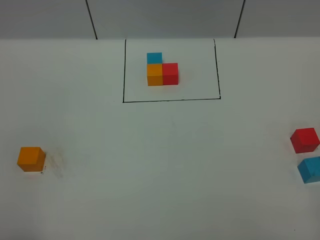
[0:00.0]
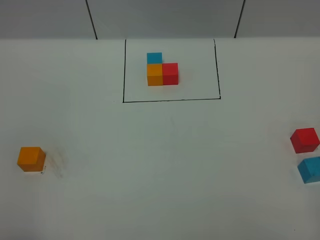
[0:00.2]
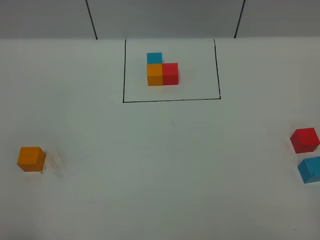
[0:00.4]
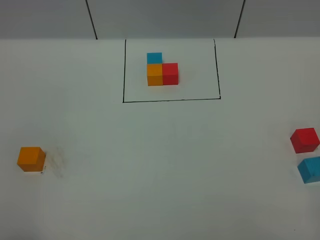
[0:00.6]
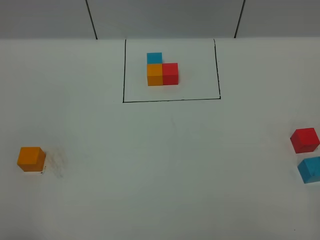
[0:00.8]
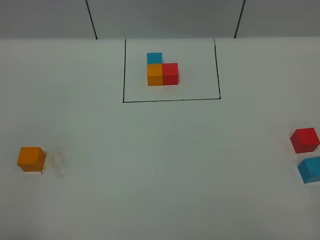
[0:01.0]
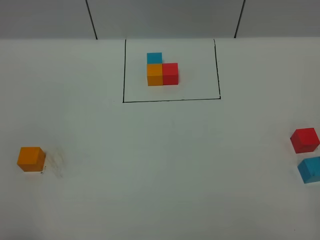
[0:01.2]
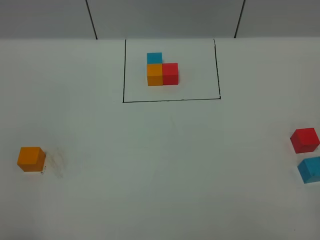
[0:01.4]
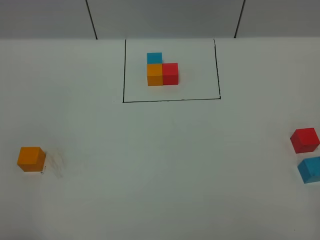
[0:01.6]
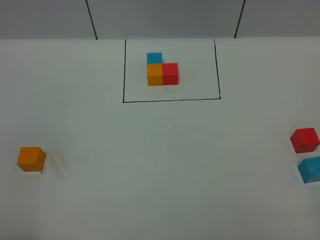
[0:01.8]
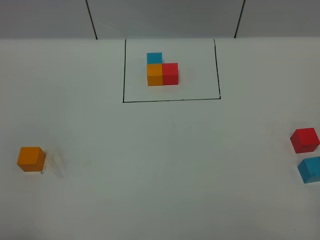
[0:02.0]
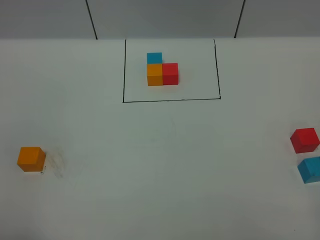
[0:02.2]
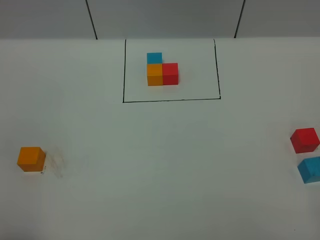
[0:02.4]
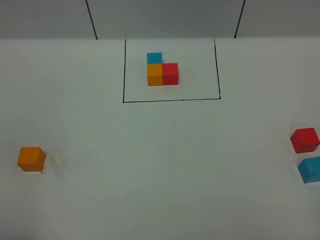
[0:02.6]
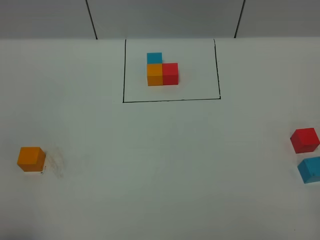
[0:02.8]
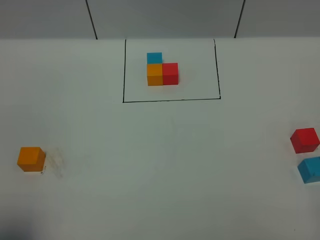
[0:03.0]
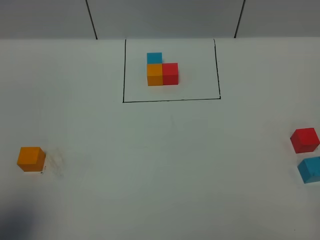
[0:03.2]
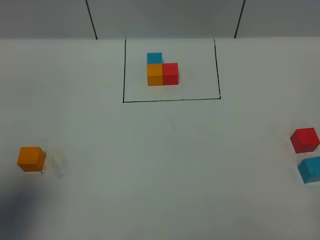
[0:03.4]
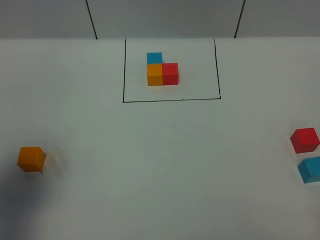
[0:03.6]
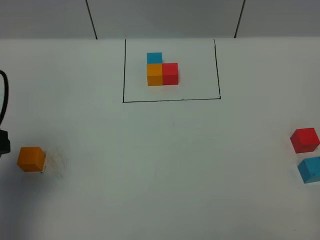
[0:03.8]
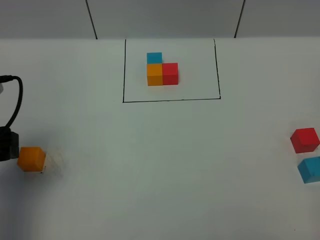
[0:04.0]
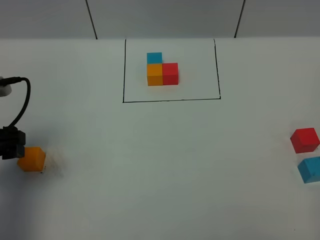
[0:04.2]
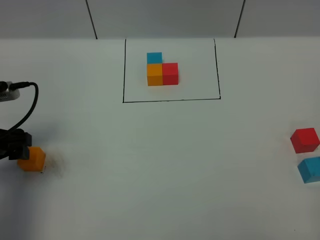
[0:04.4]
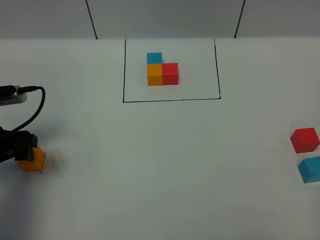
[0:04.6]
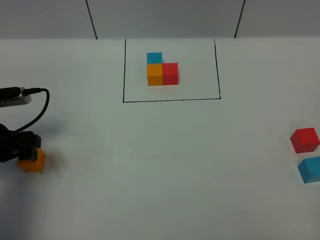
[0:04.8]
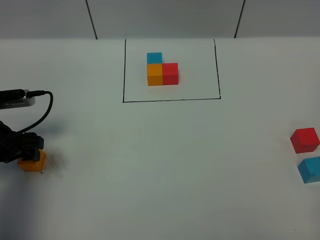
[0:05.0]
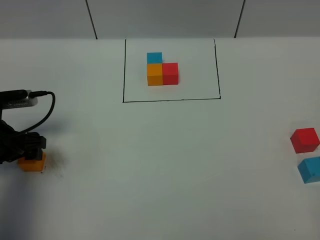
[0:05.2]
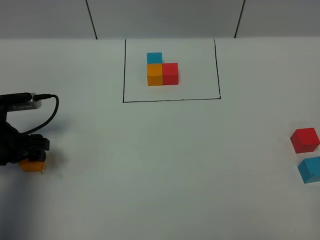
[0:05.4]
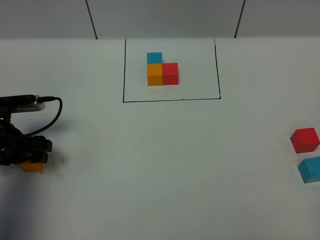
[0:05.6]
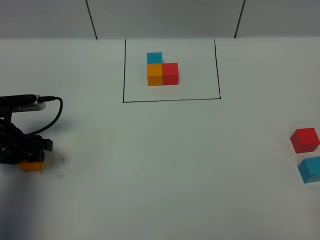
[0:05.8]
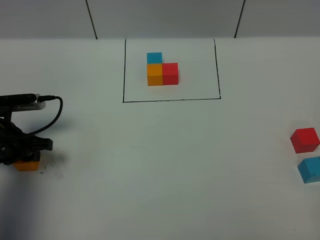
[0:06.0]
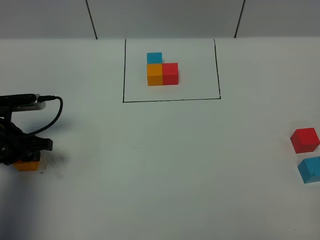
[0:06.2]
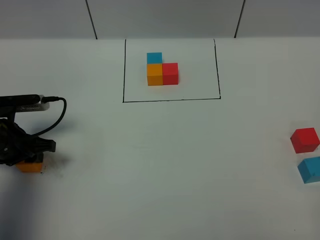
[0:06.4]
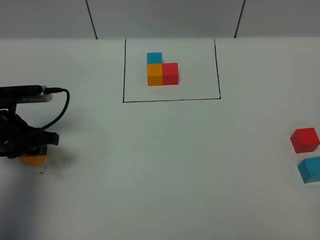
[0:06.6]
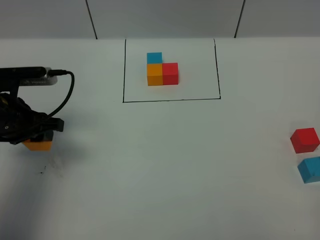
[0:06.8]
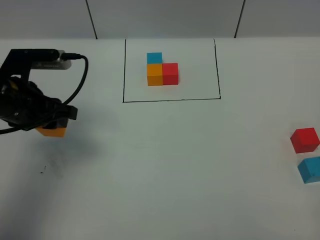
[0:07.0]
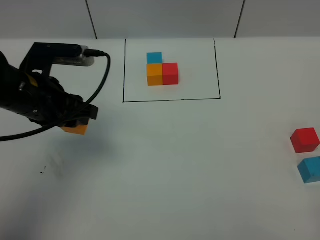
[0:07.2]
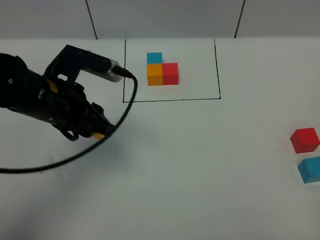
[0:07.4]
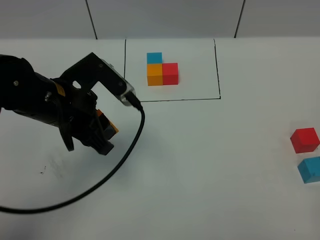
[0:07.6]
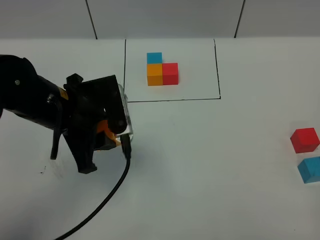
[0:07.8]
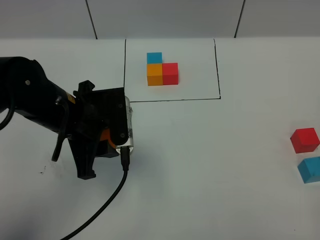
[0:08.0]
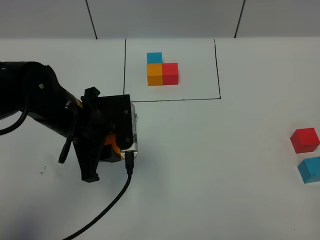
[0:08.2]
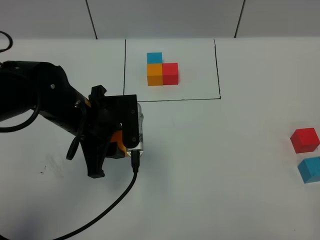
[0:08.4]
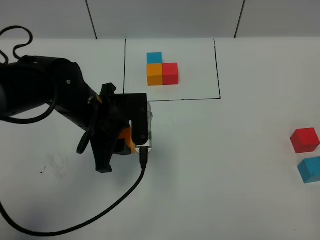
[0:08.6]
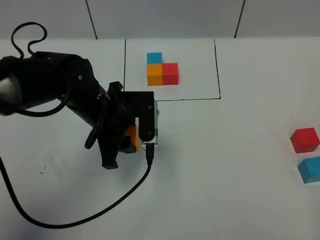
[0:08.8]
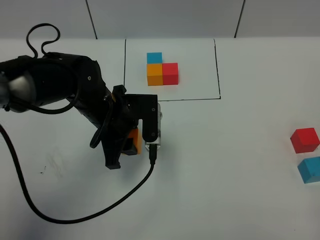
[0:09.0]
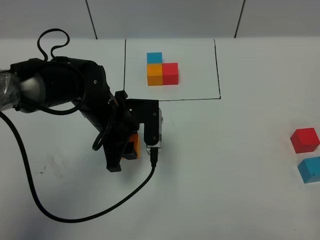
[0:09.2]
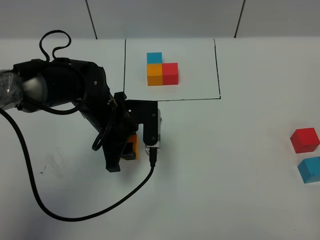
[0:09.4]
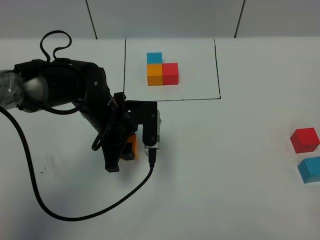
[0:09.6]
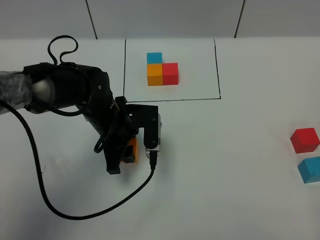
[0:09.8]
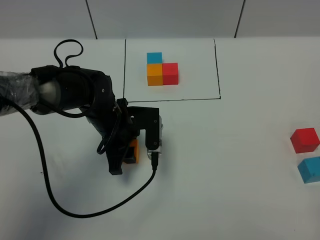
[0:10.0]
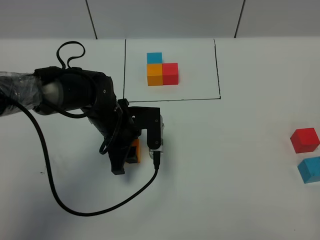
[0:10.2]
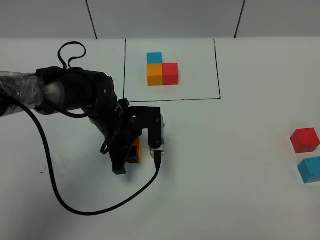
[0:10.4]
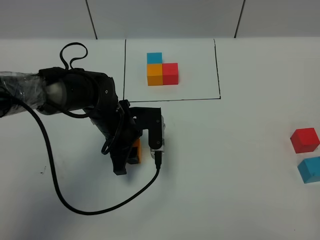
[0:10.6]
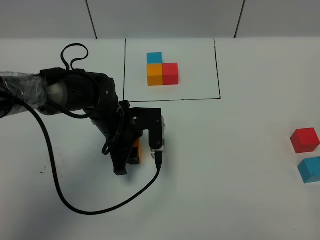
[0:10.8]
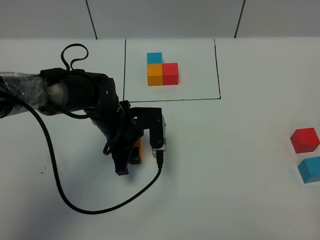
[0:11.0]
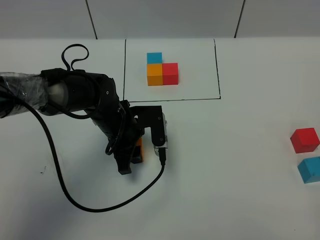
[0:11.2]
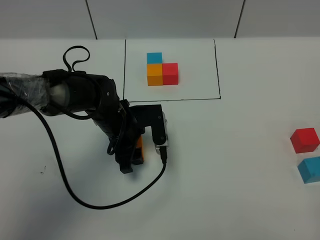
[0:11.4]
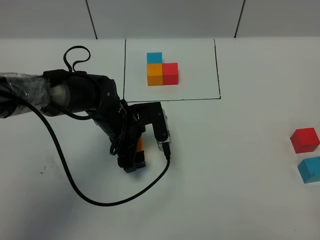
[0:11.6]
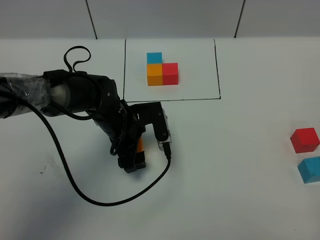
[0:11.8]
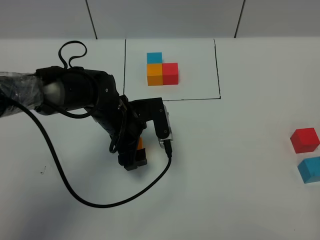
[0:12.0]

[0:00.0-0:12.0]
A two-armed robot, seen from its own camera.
Task of the whole recording: According to the building block template in front, assemble the scattered blocks together.
0:00.0 to 0:01.6: Both grippers stay about where they are.
0:03.0 to 0:04.4: The left gripper travels forward and downward by some 25 cm.
0:04.4 to 0:06.0: The left gripper shifts about 5 cm downward, and closes.
0:06.0 to 0:07.6: The left gripper heads to the right and upward, covering some 20 cm.
0:07.6 to 0:09.0: The left gripper is displaced downward and to the right by some 10 cm.
0:09.0 to 0:10.4: The left gripper goes roughly 5 cm downward.
0:10.4 to 0:12.0: The left gripper opens its fingers.

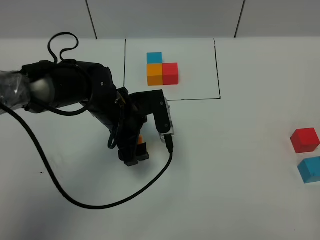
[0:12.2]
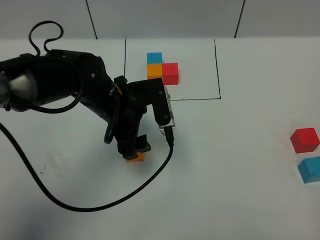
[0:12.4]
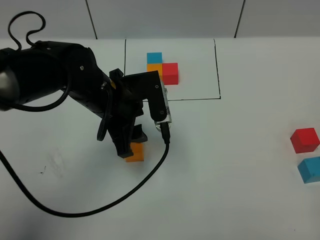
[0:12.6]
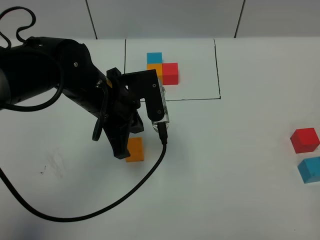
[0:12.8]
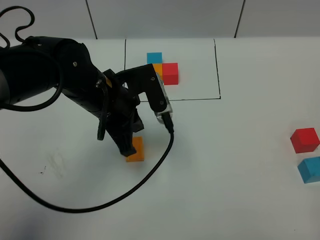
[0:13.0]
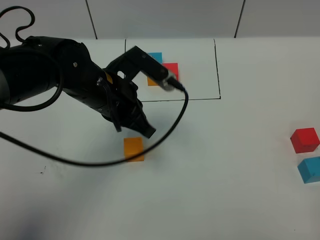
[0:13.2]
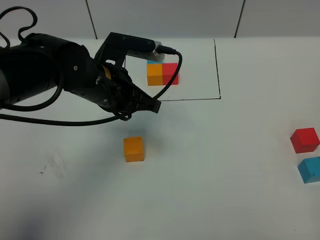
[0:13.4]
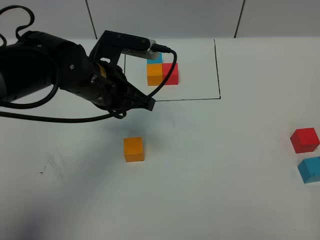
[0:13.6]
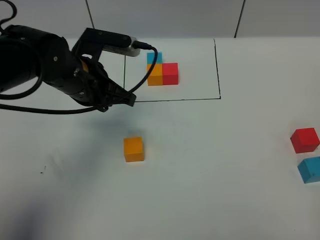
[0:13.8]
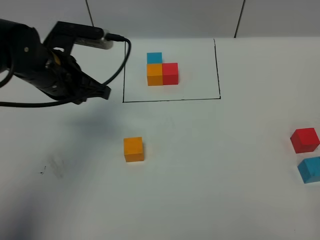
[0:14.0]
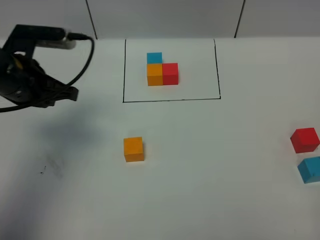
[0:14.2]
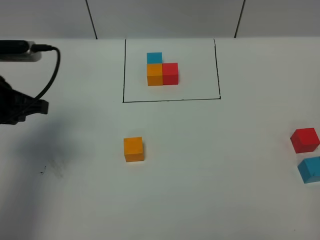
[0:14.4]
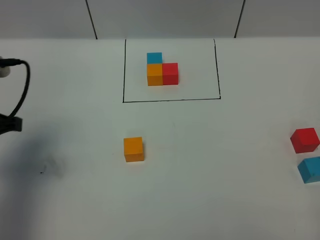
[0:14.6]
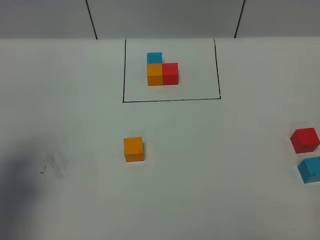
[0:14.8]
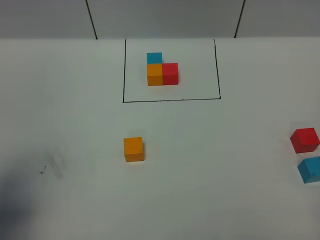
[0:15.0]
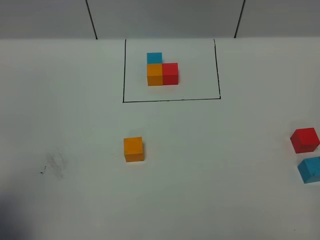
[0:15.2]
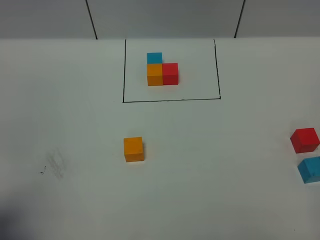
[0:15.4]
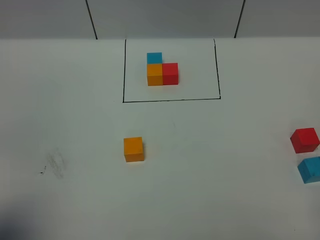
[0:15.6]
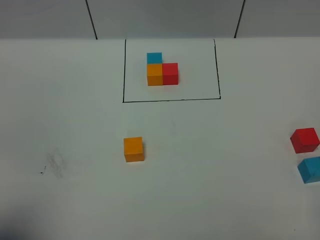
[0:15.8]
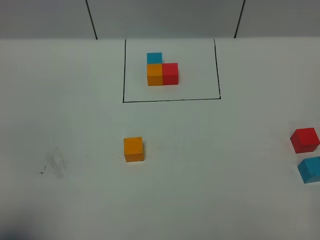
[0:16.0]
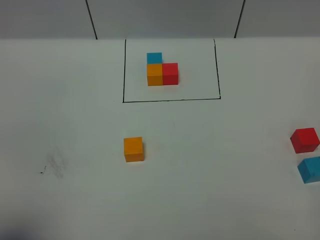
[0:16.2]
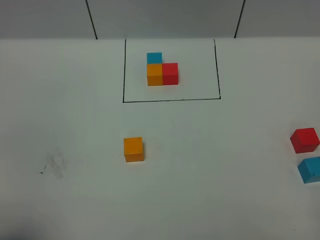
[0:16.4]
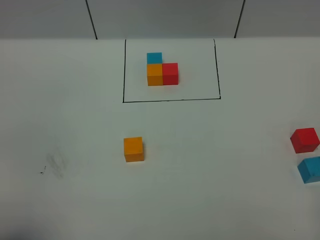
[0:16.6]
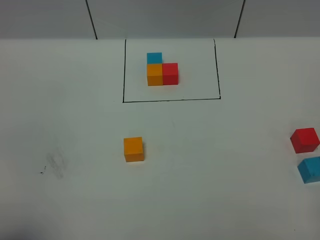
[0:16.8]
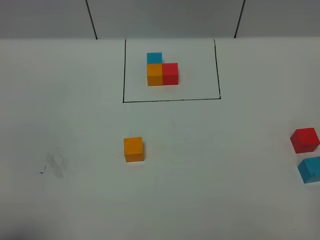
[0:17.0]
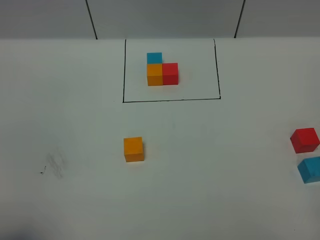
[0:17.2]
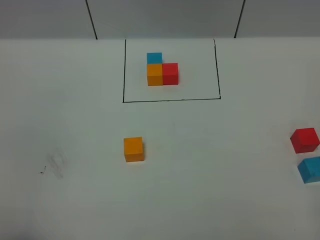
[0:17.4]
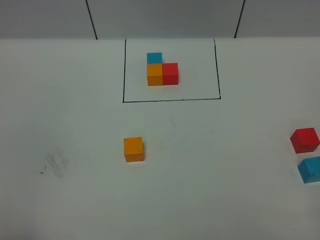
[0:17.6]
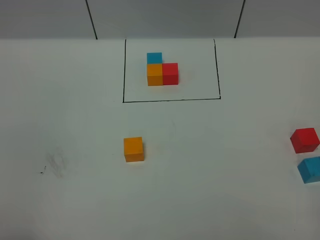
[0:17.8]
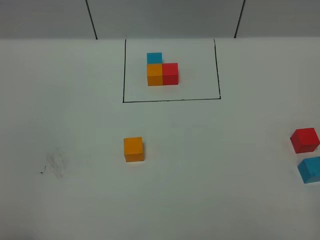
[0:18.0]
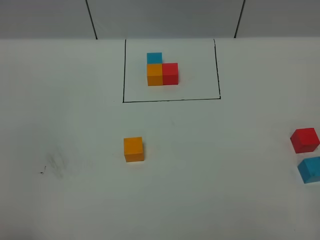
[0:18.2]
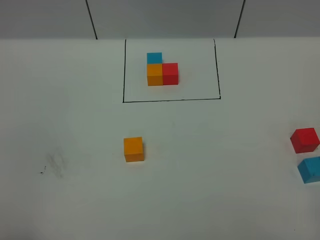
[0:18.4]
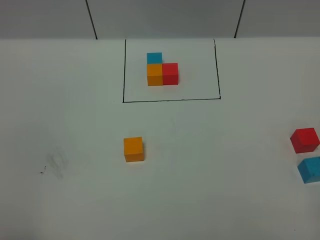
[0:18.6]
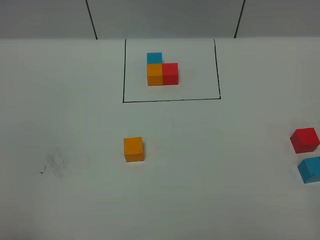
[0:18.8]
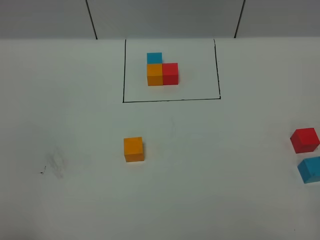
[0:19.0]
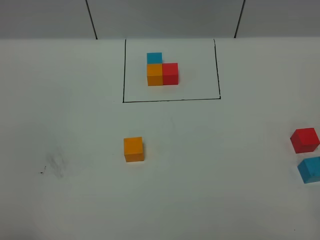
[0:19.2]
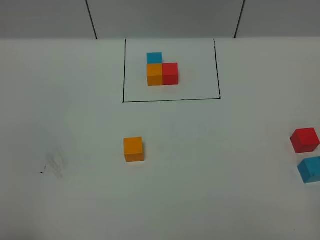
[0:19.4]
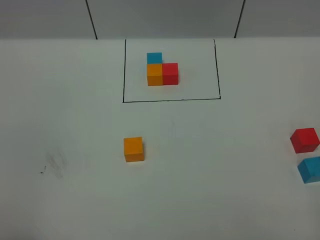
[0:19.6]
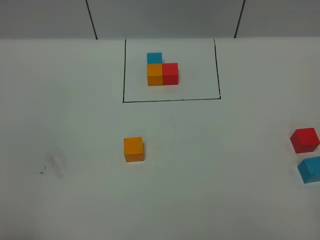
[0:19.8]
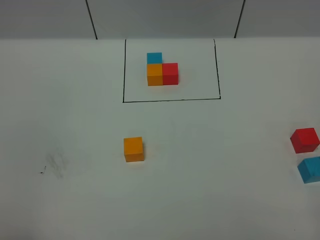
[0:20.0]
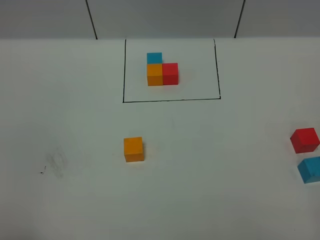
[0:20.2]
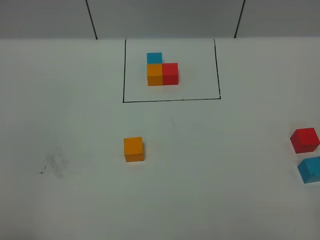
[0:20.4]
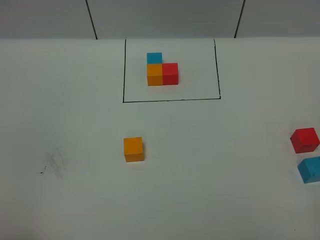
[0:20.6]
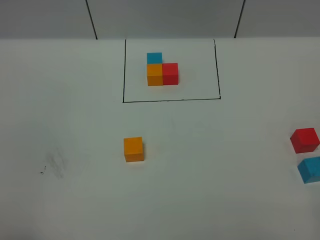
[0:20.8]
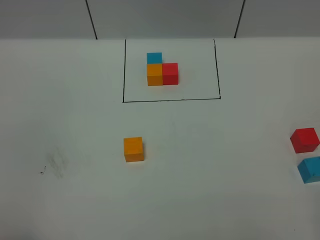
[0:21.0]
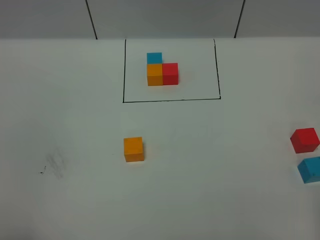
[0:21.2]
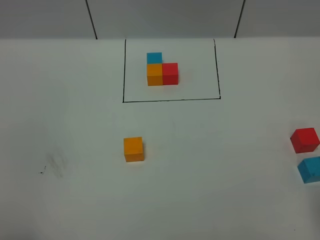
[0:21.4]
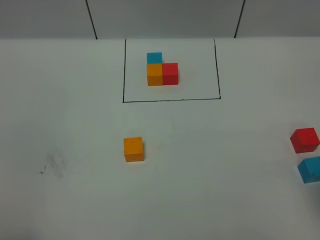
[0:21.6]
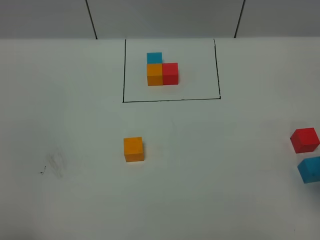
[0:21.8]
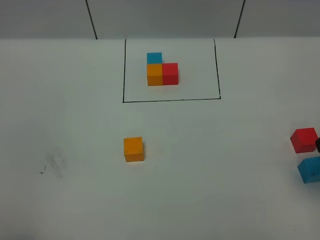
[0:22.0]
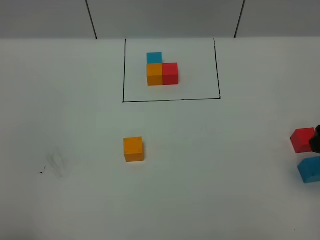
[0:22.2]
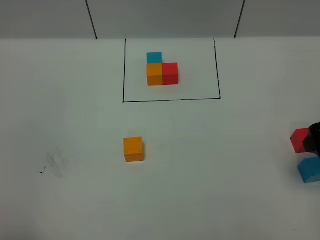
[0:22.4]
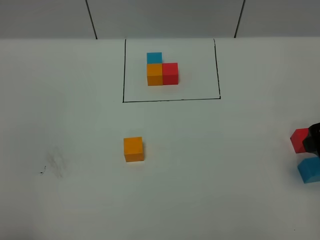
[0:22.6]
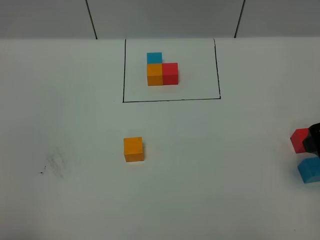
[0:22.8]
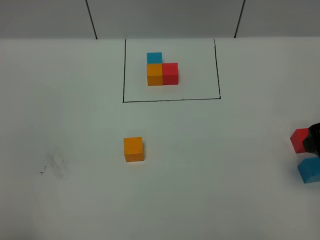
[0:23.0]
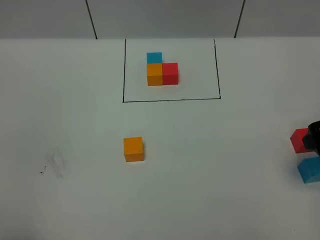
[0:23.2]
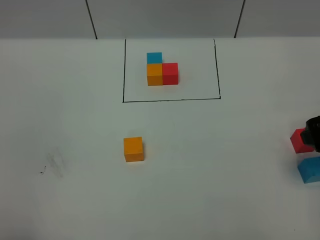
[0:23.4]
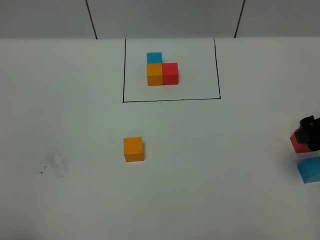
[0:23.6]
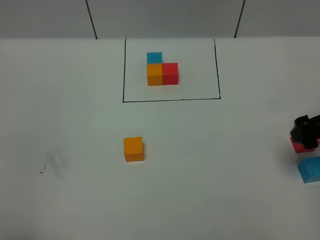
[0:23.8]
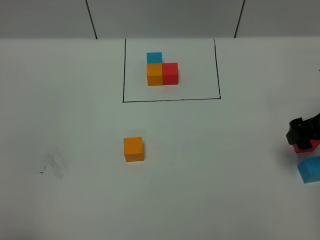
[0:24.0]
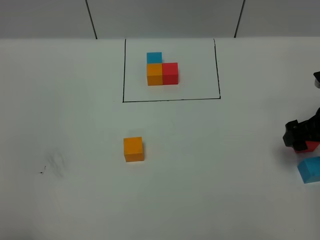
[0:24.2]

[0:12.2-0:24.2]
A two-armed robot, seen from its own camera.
Task of the whole recording: According to the building block template in front, assemble the scattered blocks together.
0:12.2 to 0:13.8: The left gripper travels upward and to the left by approximately 10 cm, and closes up.
0:13.8 to 0:15.2: The left gripper travels backward and to the left by about 30 cm.
0:15.2 to 0:16.6: The left gripper is displaced backward by approximately 10 cm.
0:18.2 to 0:19.8: Both grippers stay put.
0:21.2 to 0:22.6: The right gripper is displaced forward and downward by roughly 20 cm.
0:22.6 to 0:24.2: The right gripper heads downward and forward, covering some 10 cm.
